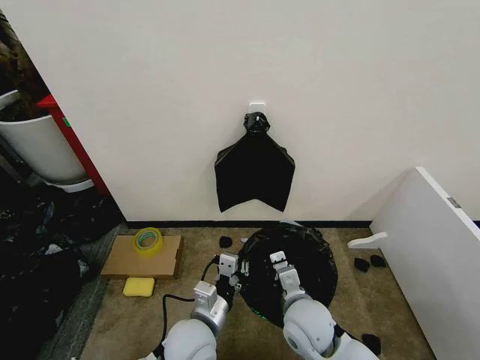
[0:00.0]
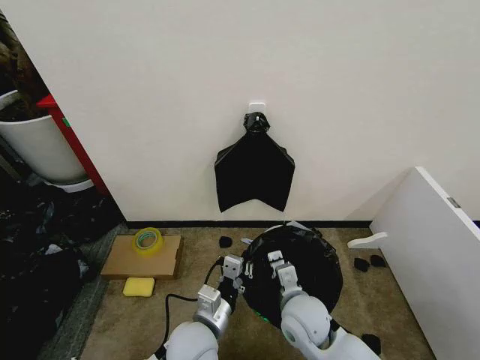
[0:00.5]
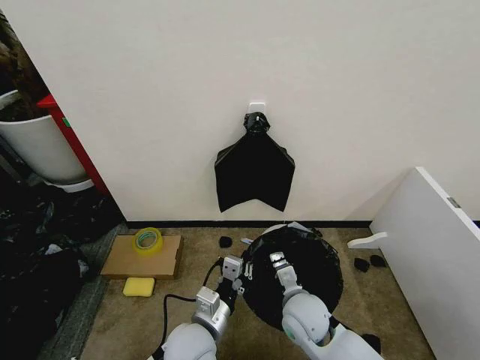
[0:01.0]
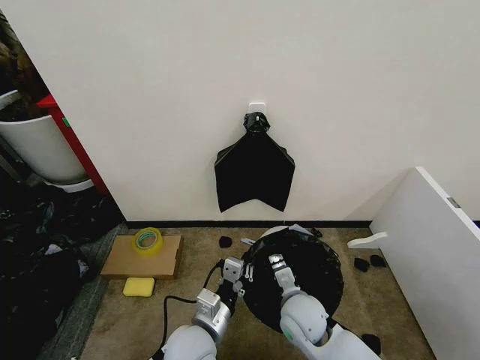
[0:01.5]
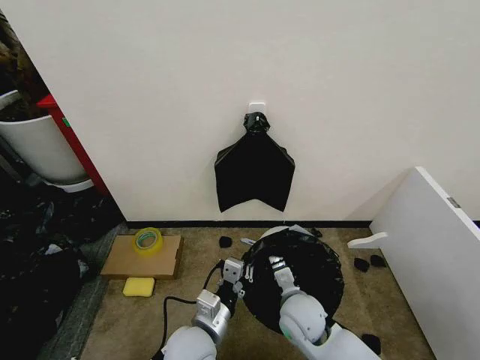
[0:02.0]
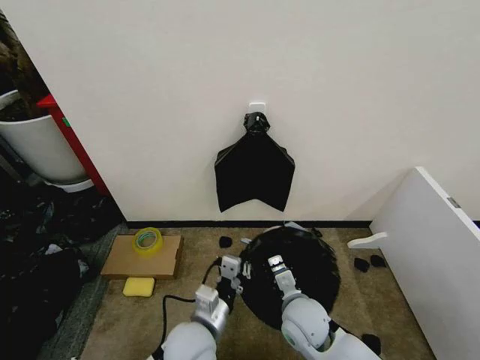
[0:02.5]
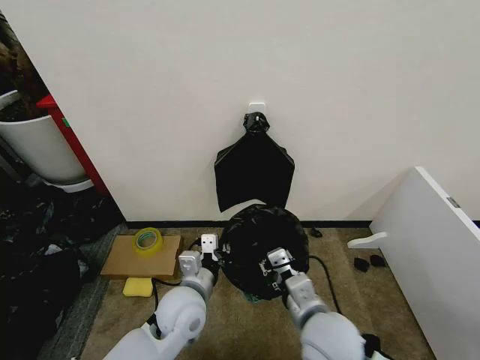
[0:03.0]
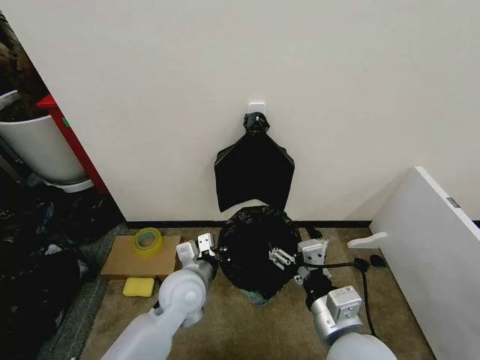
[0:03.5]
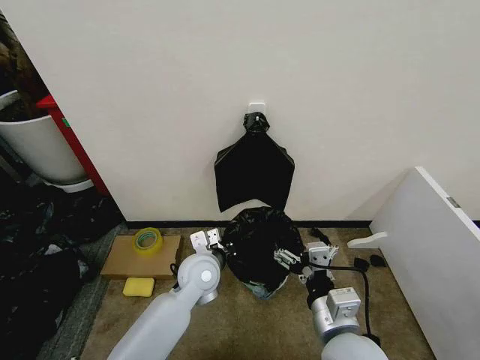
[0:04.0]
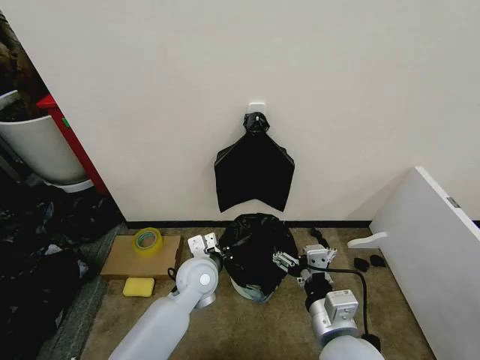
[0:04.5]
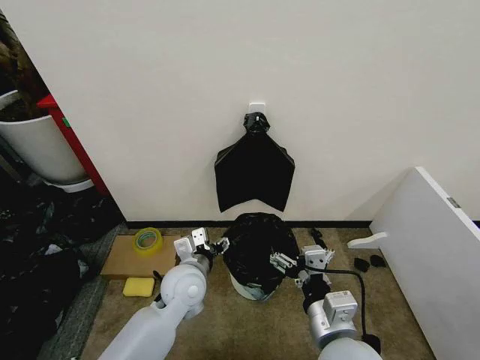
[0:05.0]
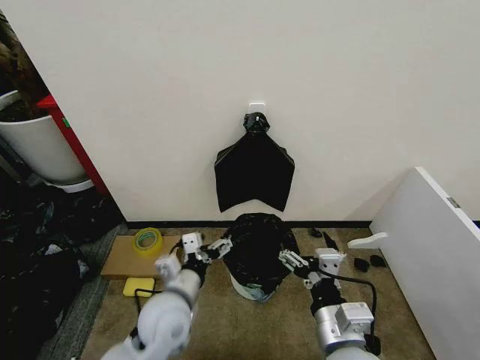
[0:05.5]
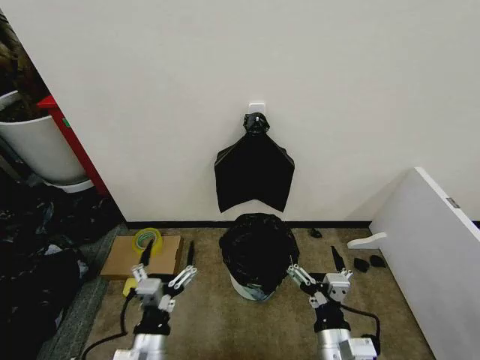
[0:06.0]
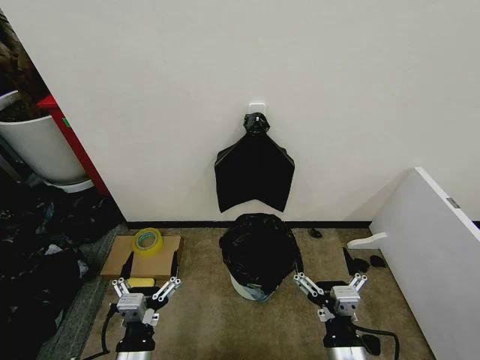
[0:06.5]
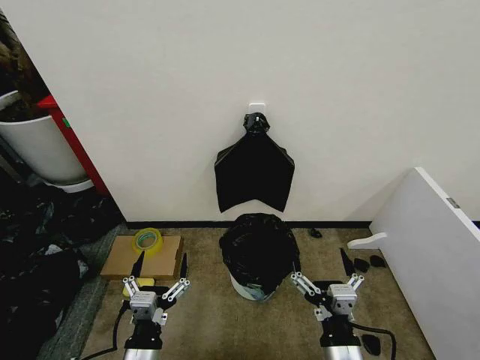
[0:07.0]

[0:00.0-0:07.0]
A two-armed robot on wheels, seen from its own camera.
Task of the whole recording: Place the garbage bag over the trash bin.
0:00.0 to 0:02.0: The grippers stay close to where they were, moving slightly.
0:02.0 to 0:03.5: The left gripper shifts some 10 cm forward. Meanwhile the right gripper travels upward and backward by roughly 15 cm, and opens its fingers.
0:03.5 to 0:05.0: The left gripper opens.
0:05.0 to 0:07.0: The right gripper goes roughly 10 cm downward and backward. The left gripper heads backward, covering some 20 cm.

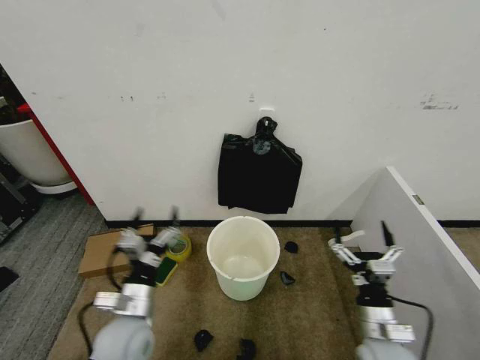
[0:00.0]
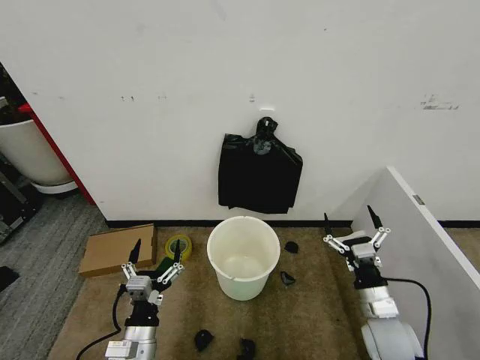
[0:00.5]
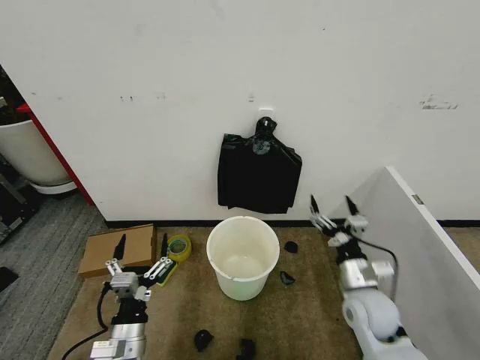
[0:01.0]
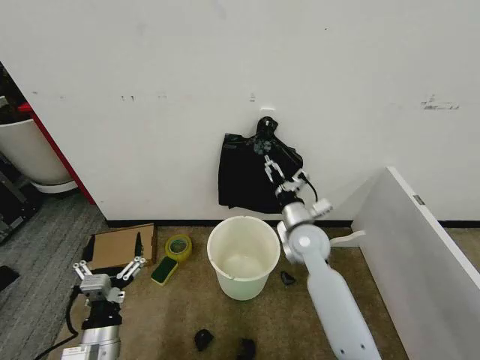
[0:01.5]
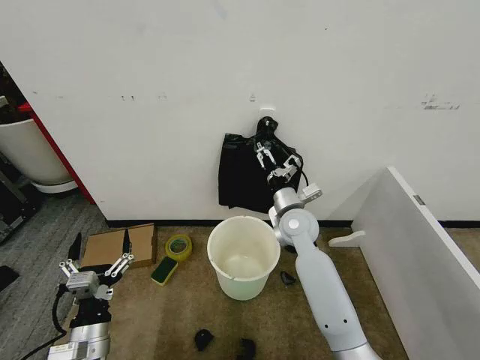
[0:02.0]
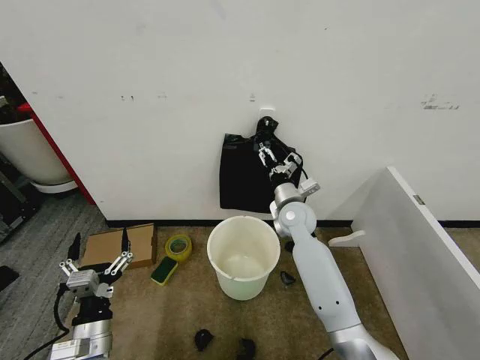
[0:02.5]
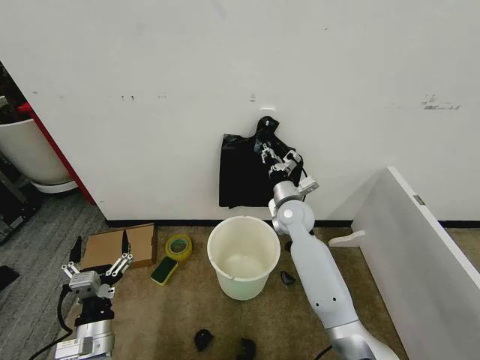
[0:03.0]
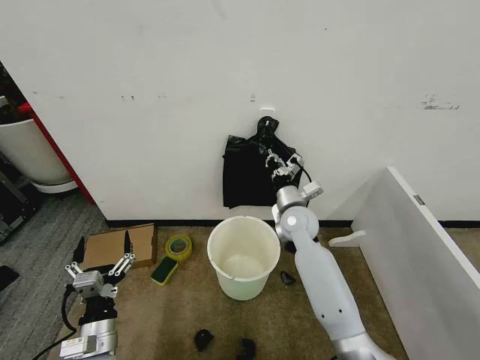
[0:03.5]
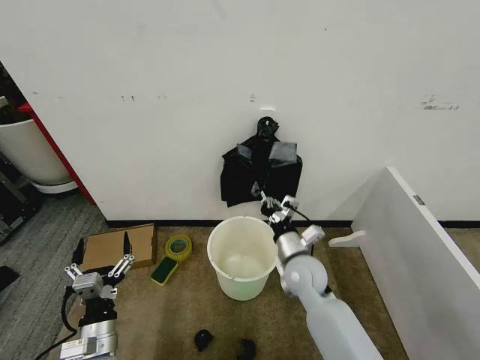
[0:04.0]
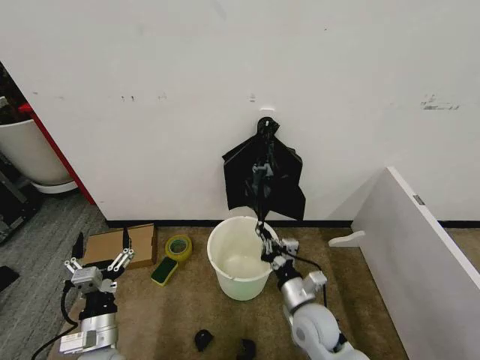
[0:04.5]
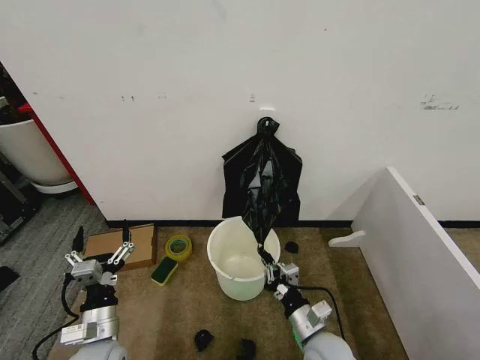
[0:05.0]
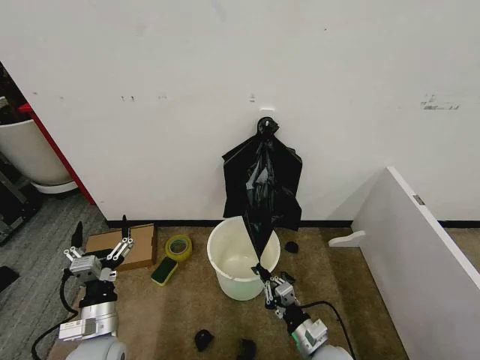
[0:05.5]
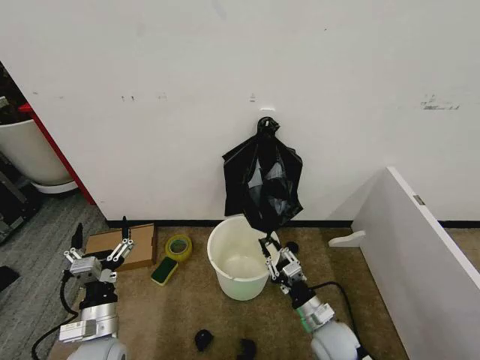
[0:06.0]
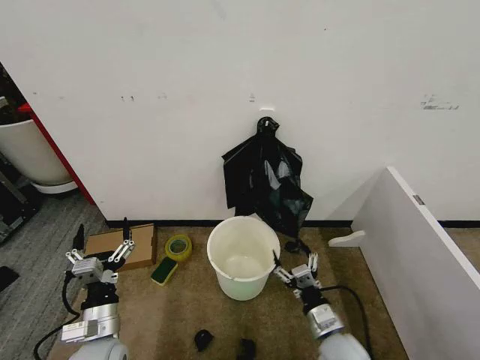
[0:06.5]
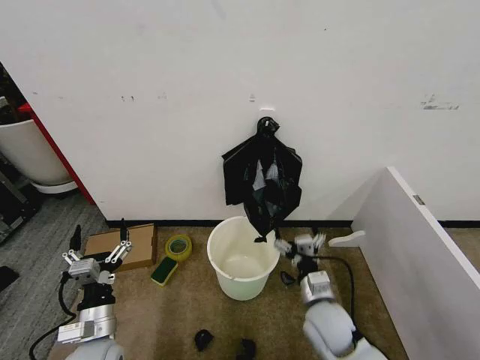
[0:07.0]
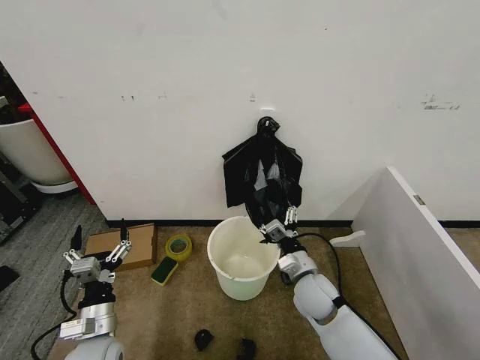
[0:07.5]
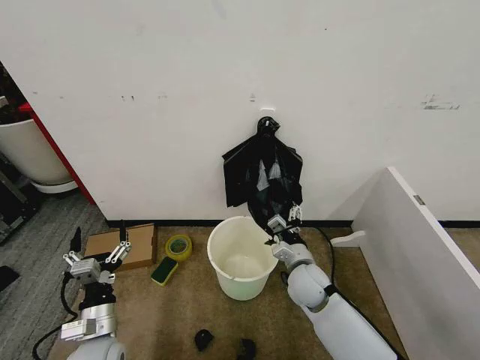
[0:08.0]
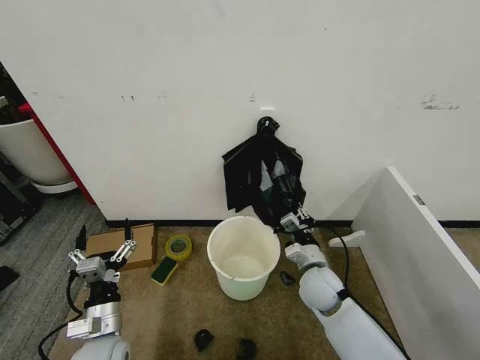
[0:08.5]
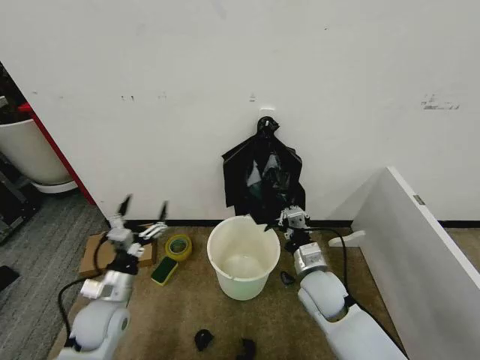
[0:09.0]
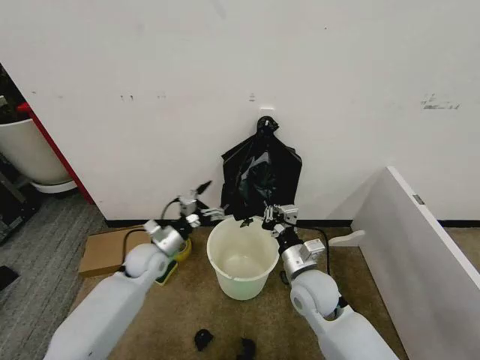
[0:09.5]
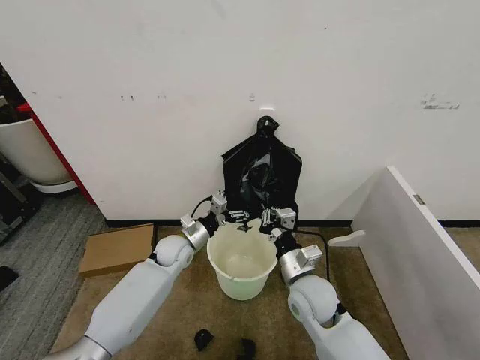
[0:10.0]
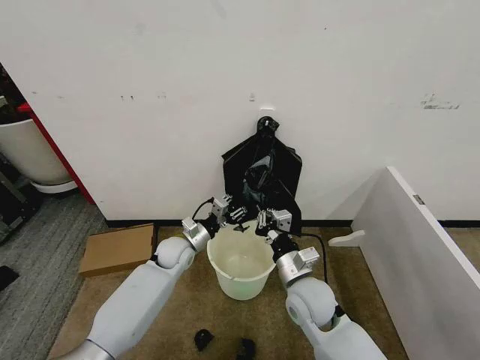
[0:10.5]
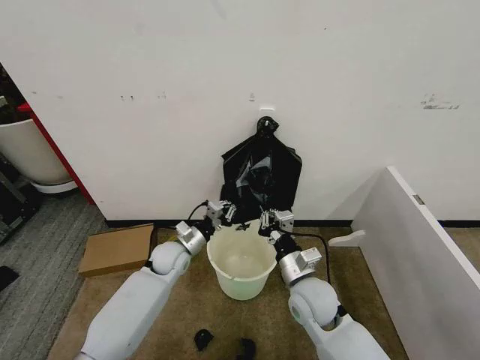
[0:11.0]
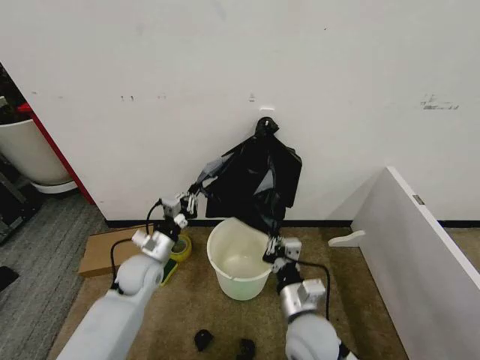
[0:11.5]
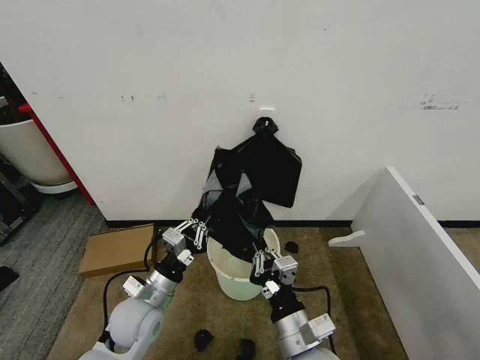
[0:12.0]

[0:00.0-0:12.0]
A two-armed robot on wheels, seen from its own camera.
Task of the whole recording: Place the garbage bag over the trash bin.
0:02.0 to 0:04.0: The right gripper goes about 10 cm backward and downward, and closes up.
0:04.0 to 0:06.0: The right gripper shifts roughly 15 cm backward, downward and to the right.
0:06.0 to 0:08.0: The right gripper shifts some 15 cm forward and upward, and opens its fingers.
0:08.0 to 0:10.0: The left gripper travels forward by some 25 cm; the right gripper moves about 5 cm, and closes up.
0:10.0 to 0:12.0: Both grippers travel together backward, about 15 cm. The left gripper closes its fingers.

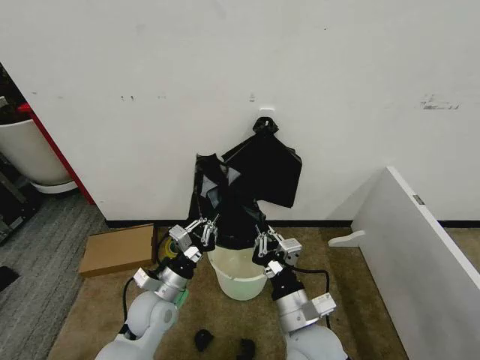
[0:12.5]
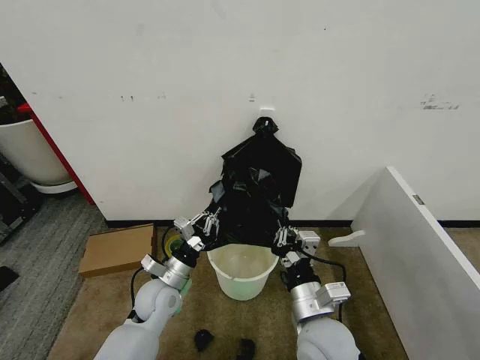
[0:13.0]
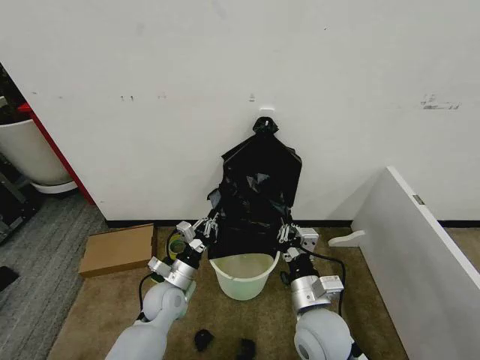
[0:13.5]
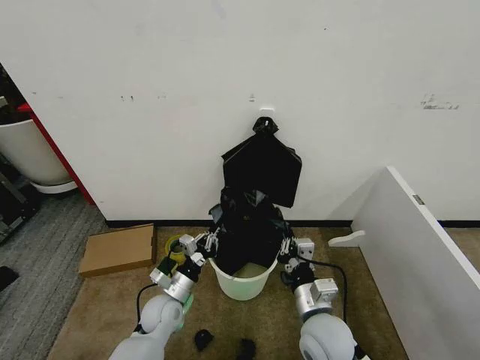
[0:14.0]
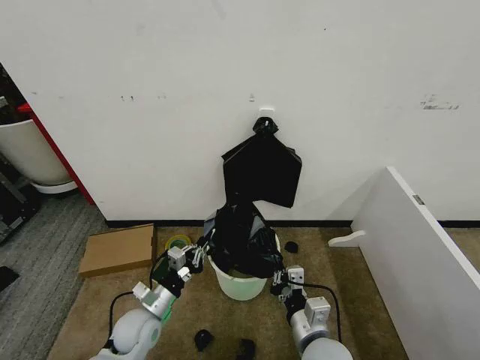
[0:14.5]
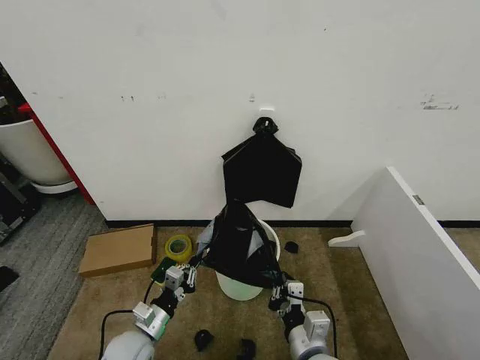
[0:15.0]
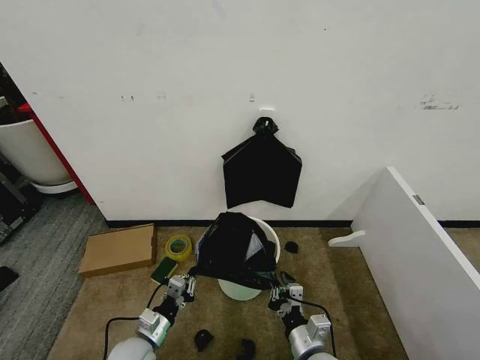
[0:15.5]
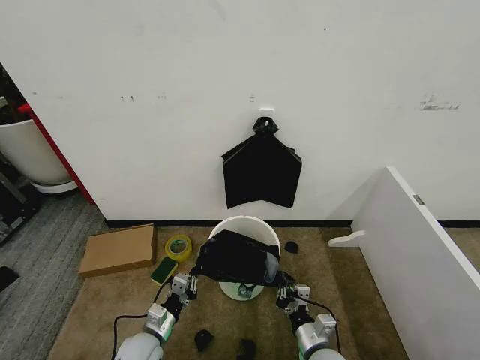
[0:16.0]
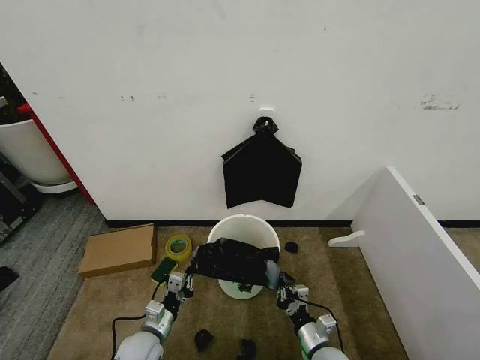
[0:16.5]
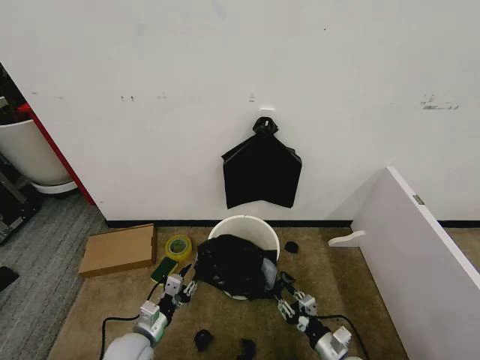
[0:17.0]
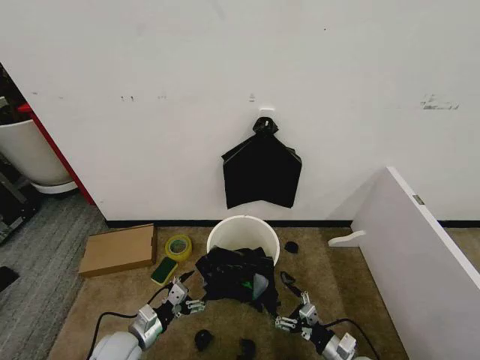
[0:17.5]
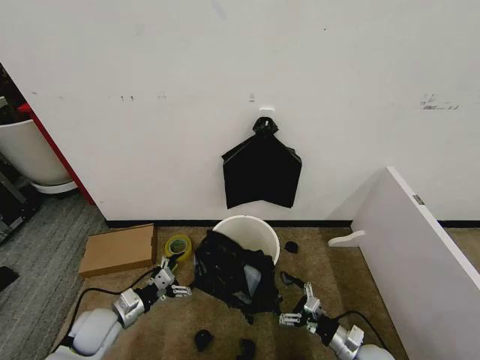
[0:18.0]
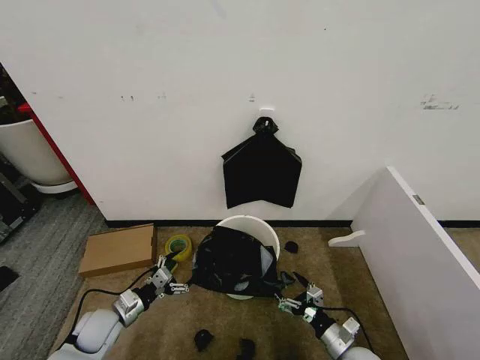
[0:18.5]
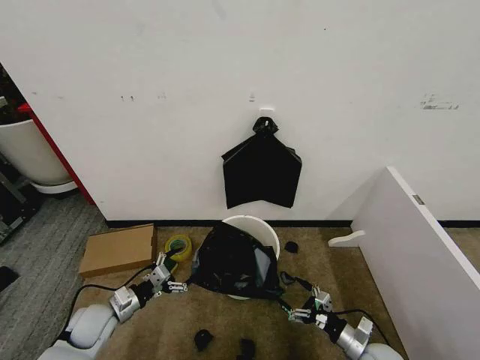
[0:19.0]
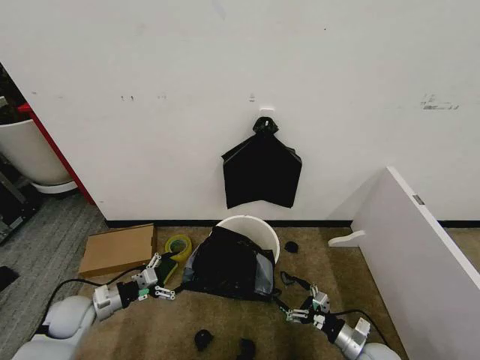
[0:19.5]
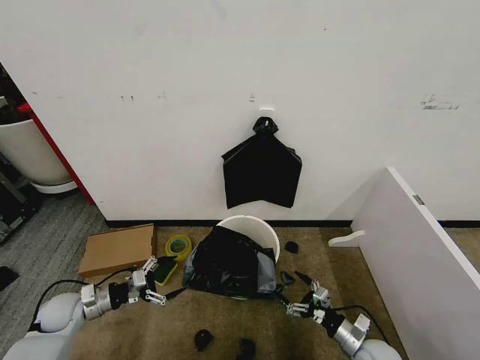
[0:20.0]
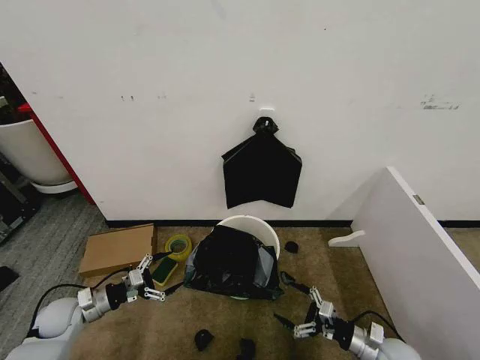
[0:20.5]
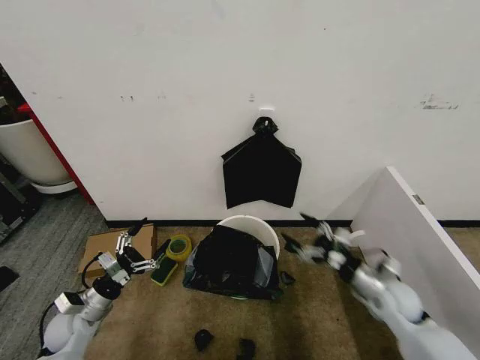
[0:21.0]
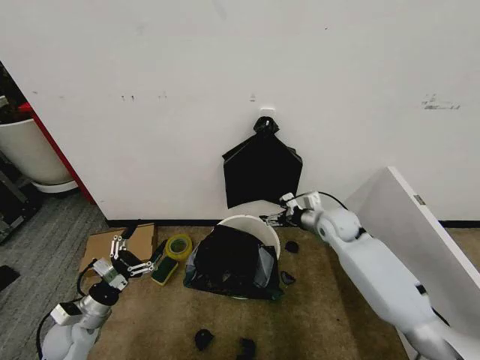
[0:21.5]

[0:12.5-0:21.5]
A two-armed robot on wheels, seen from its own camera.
Task of the whole recording: Place the garbage bag over the trash bin.
0:12.5 to 0:14.5: The left gripper travels downward by approximately 5 cm. The right gripper ends up roughly 5 cm from where it was.
0:14.5 to 0:17.0: The right gripper travels downward and to the right by roughly 20 cm, and opens; the left gripper moves some 5 cm, and opens up.
0:17.0 to 0:19.5: The right gripper travels to the right by approximately 10 cm, and opens up. Meanwhile the left gripper travels to the left and forward by about 15 cm, and opens.
0:19.5 to 0:21.5: The right gripper shifts roughly 35 cm forward and upward.
